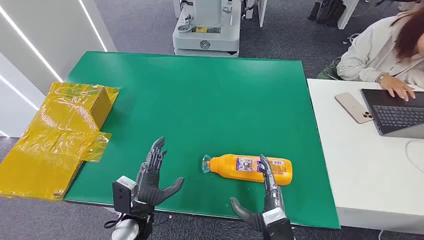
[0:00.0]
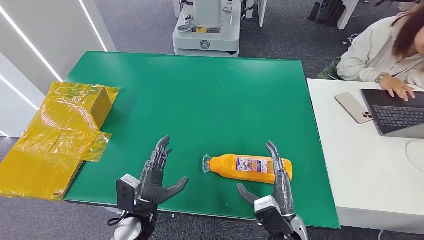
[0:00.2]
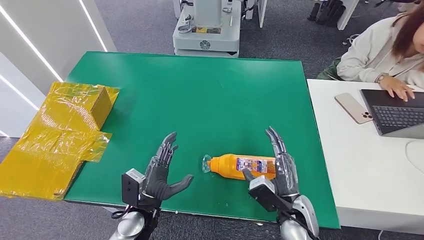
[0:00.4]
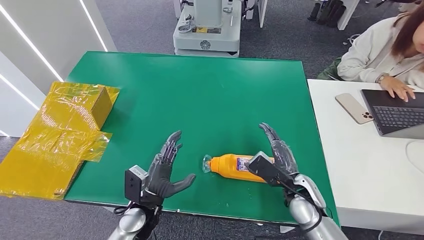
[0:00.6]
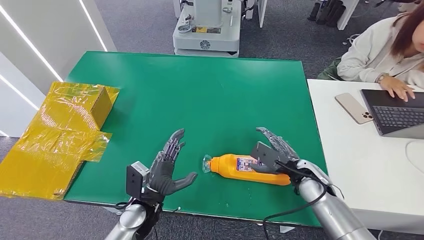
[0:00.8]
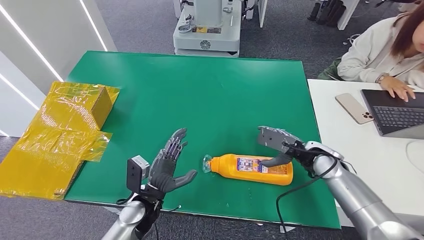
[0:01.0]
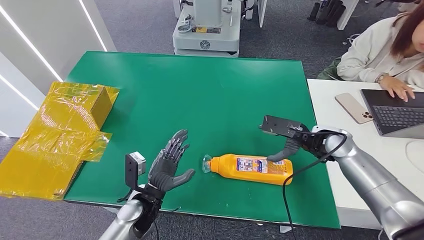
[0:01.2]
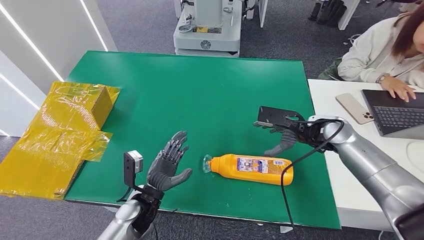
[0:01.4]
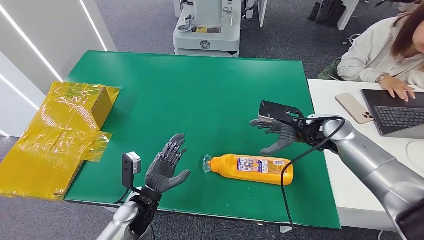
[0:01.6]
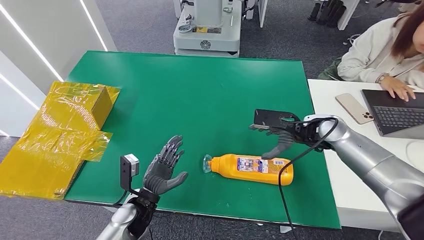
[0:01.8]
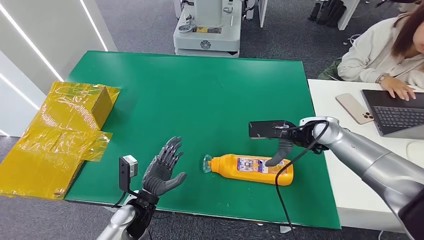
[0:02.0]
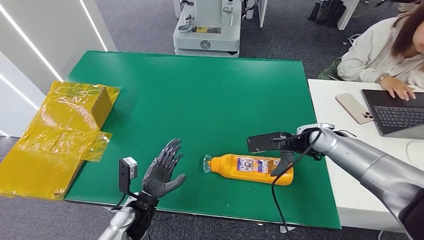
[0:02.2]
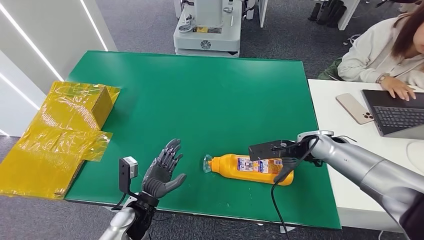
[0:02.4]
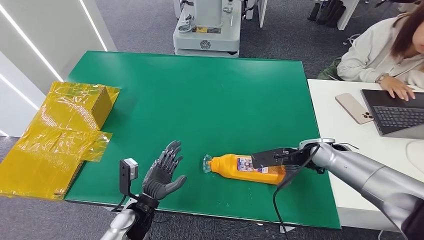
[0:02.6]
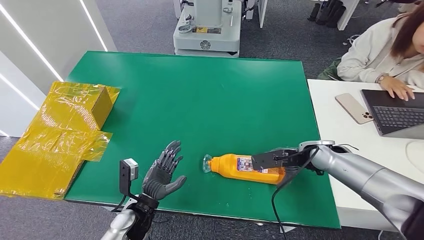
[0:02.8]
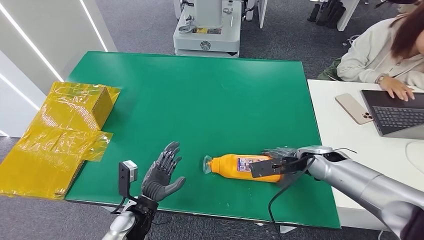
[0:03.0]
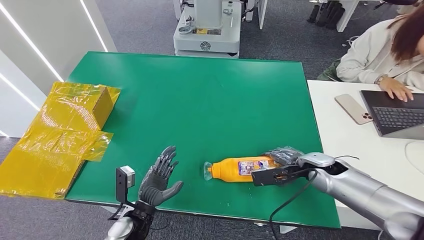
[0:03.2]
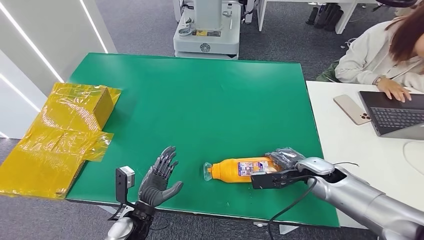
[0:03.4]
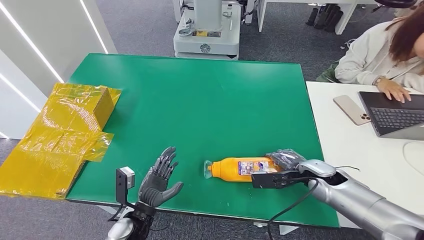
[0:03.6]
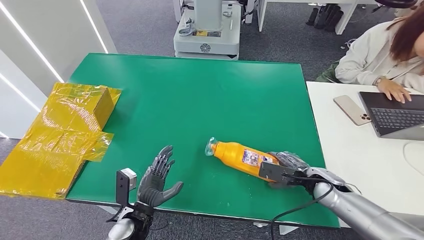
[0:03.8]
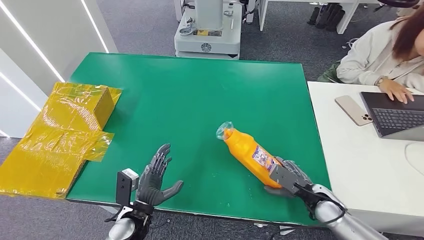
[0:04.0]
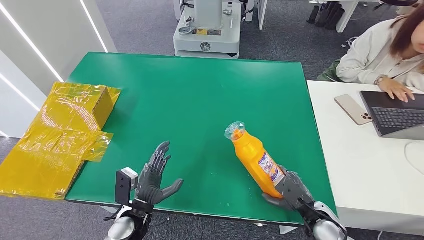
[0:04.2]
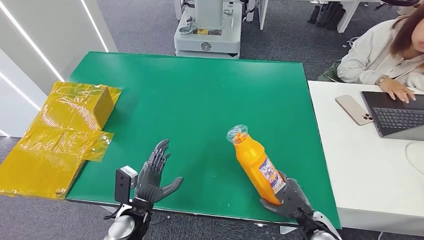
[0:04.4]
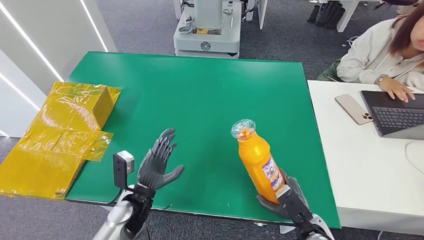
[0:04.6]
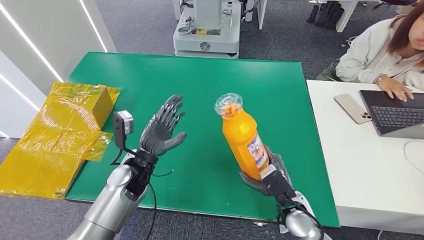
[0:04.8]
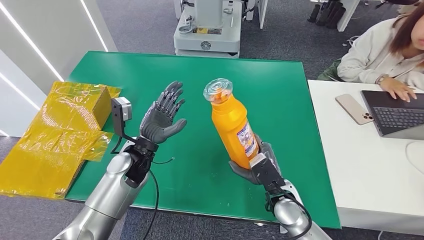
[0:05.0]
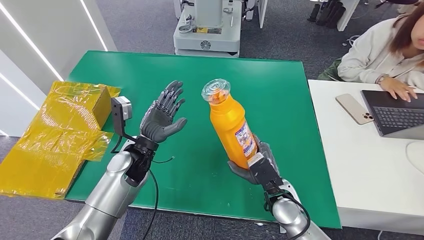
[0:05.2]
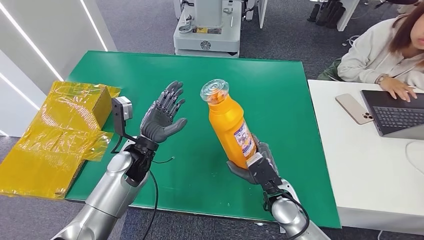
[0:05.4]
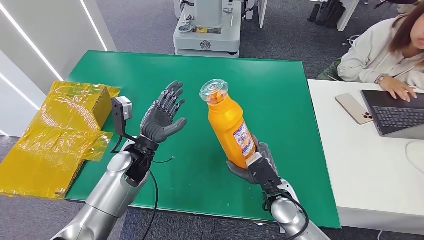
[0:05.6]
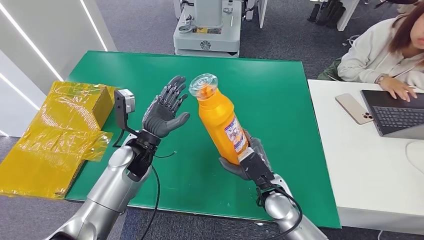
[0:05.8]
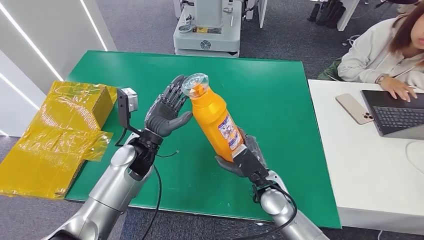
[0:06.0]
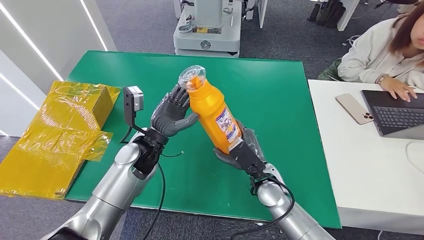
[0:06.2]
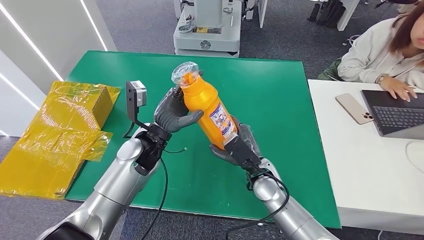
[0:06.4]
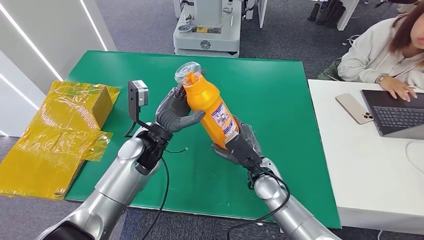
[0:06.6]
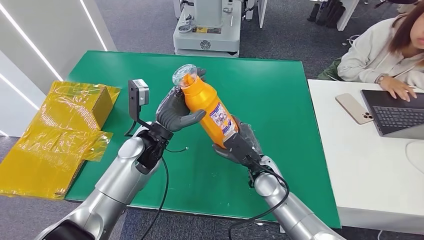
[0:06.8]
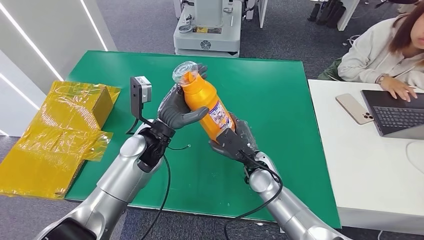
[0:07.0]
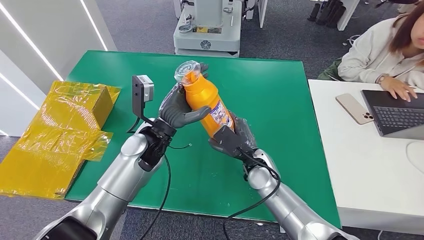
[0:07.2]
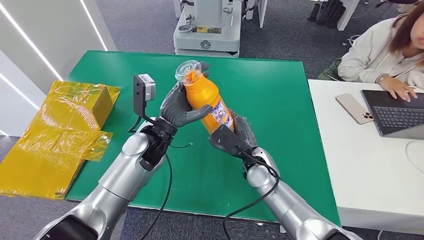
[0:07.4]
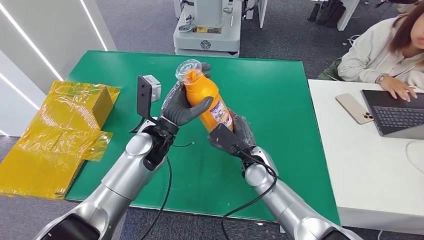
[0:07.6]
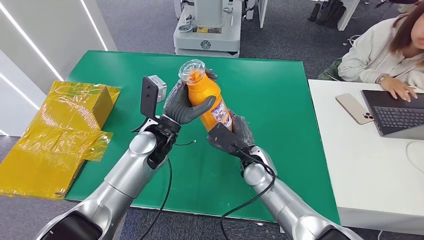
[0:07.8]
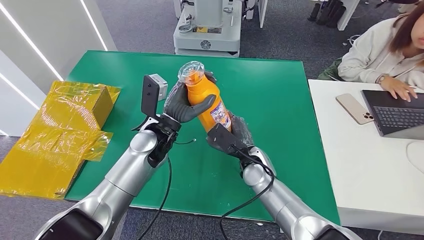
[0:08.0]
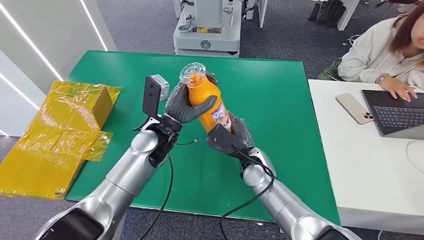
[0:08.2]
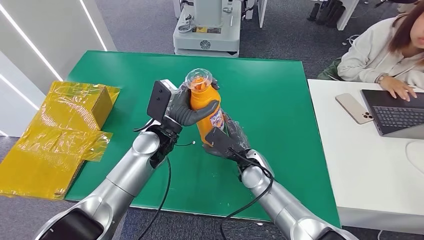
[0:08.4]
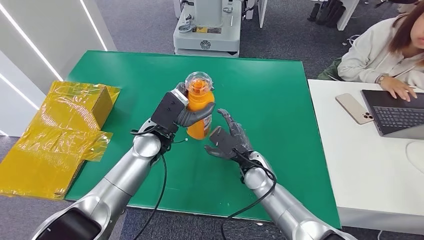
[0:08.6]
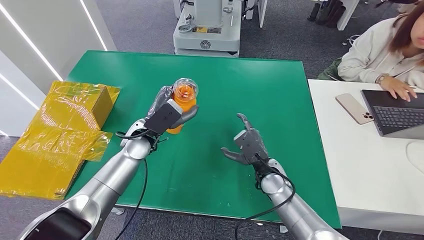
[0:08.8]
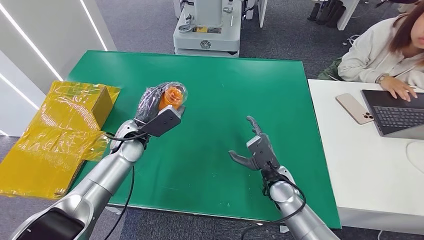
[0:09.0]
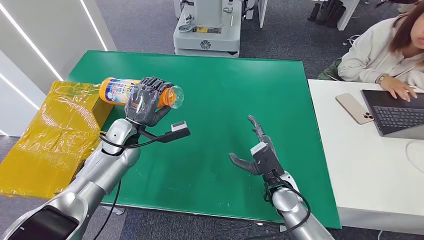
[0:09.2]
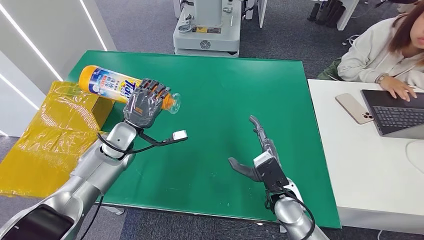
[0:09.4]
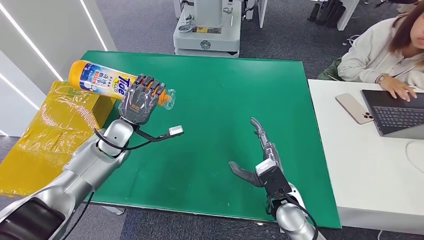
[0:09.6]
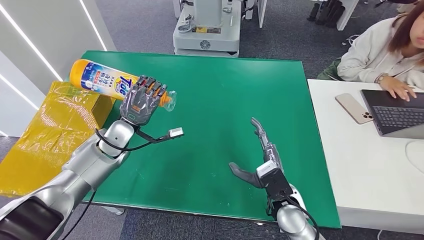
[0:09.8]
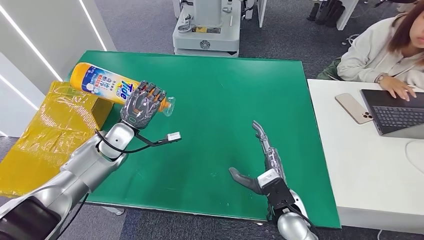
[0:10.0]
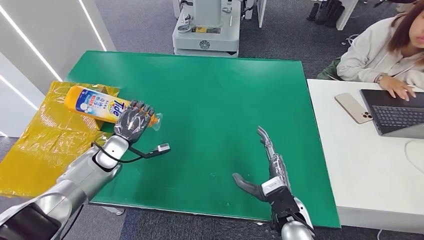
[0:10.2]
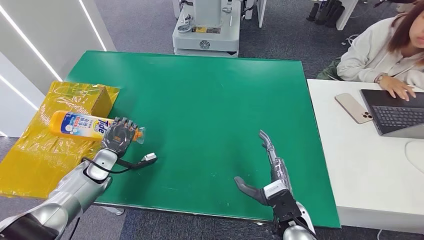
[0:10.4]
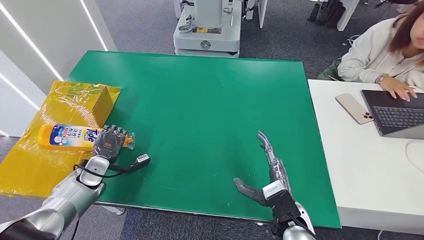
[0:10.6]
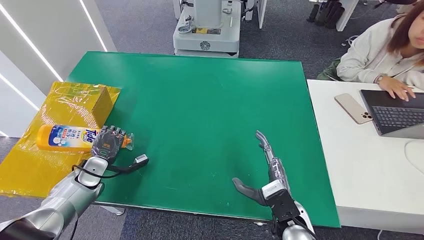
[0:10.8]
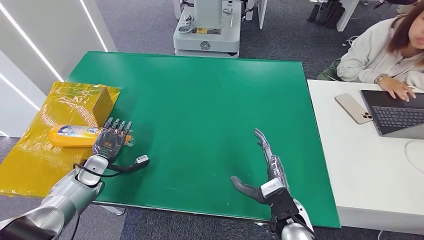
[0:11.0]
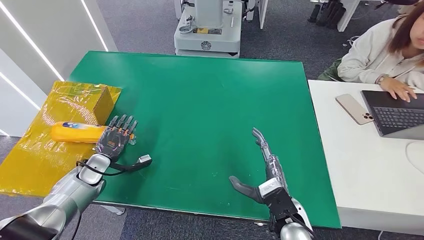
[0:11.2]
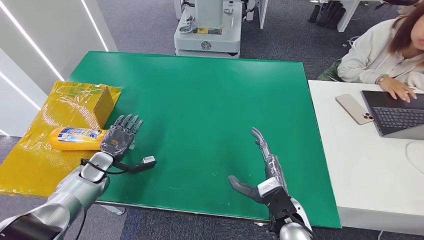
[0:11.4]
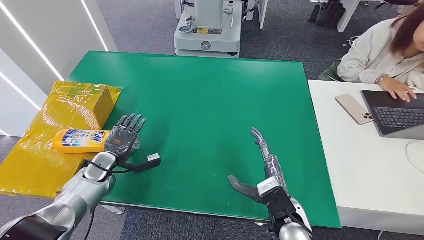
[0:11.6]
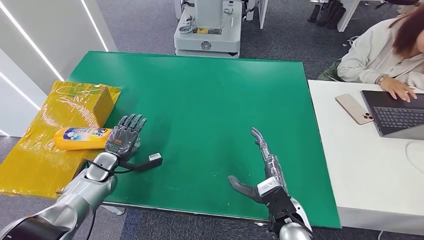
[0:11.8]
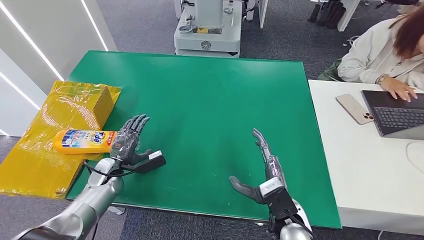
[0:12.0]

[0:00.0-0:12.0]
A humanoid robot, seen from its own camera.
Step, 0:00.0 to 0:04.6: Pick up the bottle from the table.
Step, 0:05.0 to 0:12.0: Turn the bottle to the front side.
0:01.6 to 0:03.0: The right hand heads downward, covering approximately 10 cm.
0:03.0 to 0:04.4: The right hand goes approximately 20 cm backward and downward.
0:04.4 to 0:06.0: The left hand goes some 20 cm forward and upward. The right hand is displaced to the left, forward and upward by about 20 cm.
0:06.0 to 0:07.6: The left hand changes place by approximately 5 cm, while the right hand heads forward, covering approximately 5 cm.
0:07.6 to 0:09.0: The right hand is displaced to the right by roughly 5 cm. Meanwhile the left hand heads to the left, covering some 10 cm.
0:09.0 to 0:10.4: The left hand is displaced to the left and downward by about 15 cm, while the right hand shifts roughly 10 cm backward.

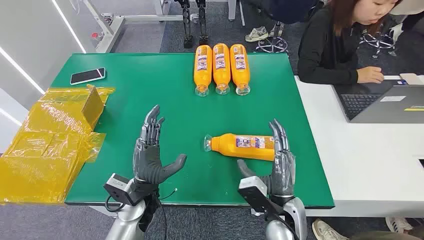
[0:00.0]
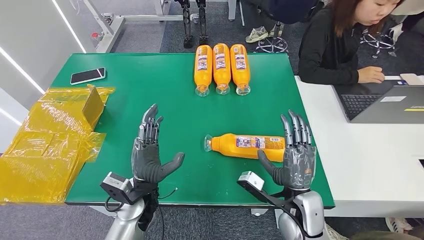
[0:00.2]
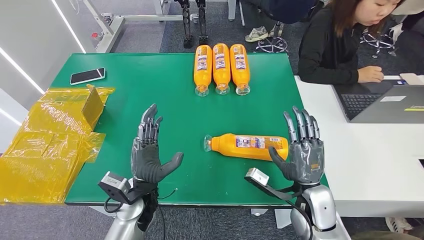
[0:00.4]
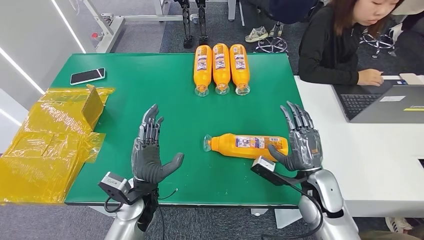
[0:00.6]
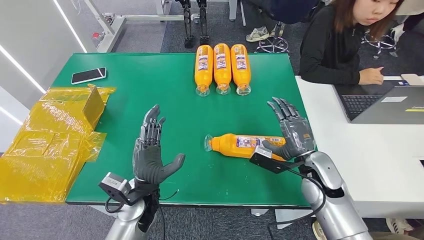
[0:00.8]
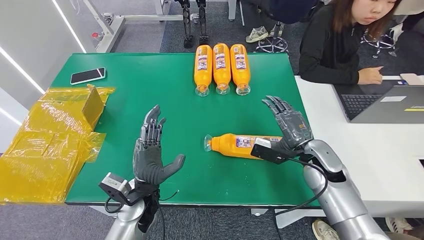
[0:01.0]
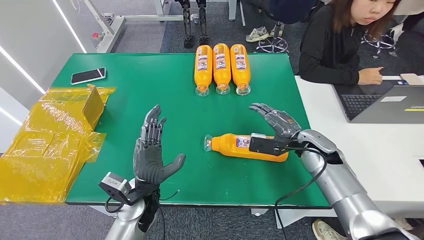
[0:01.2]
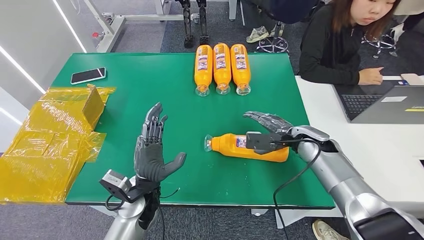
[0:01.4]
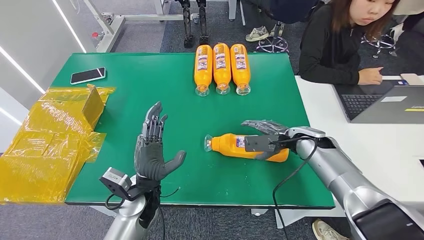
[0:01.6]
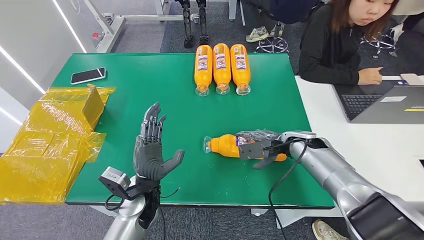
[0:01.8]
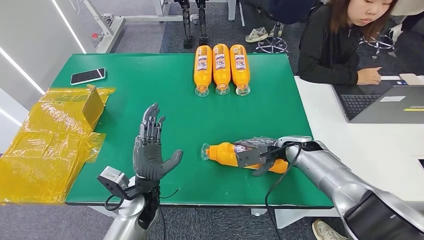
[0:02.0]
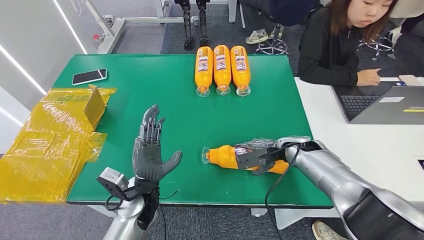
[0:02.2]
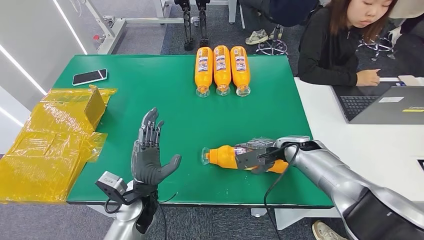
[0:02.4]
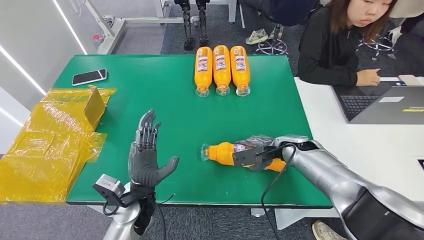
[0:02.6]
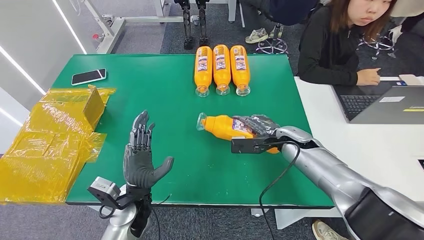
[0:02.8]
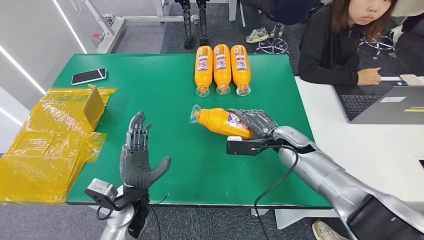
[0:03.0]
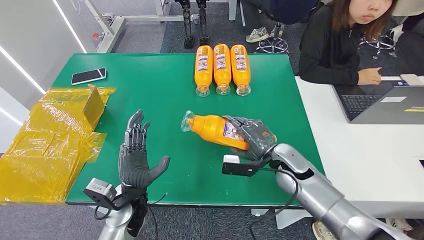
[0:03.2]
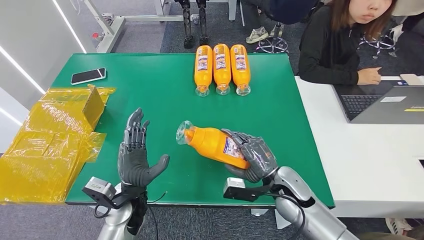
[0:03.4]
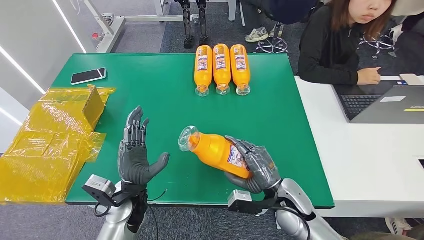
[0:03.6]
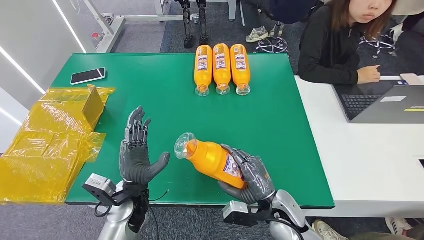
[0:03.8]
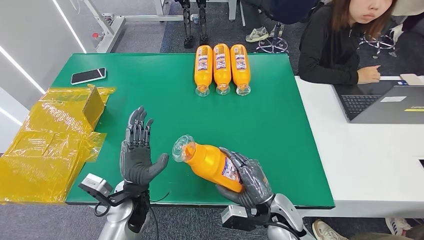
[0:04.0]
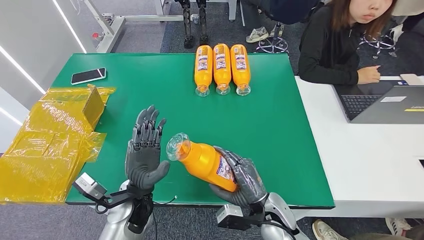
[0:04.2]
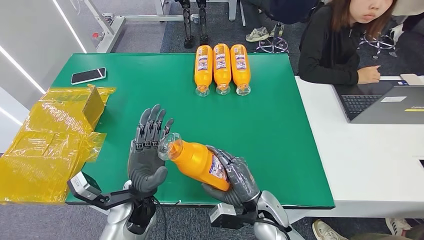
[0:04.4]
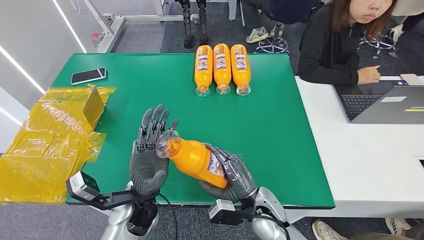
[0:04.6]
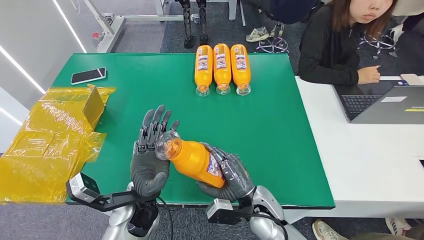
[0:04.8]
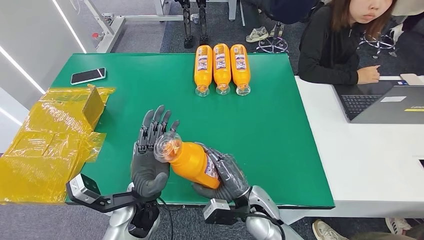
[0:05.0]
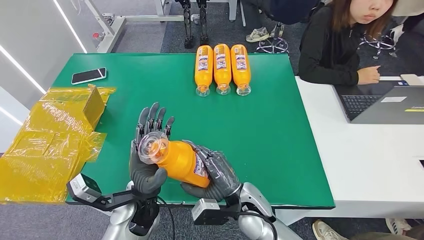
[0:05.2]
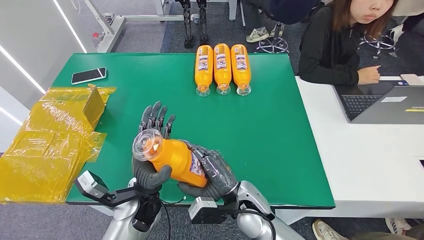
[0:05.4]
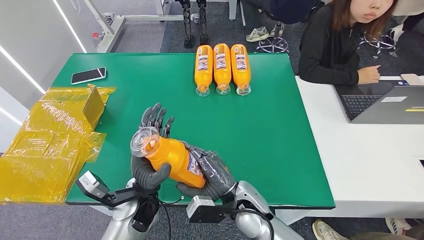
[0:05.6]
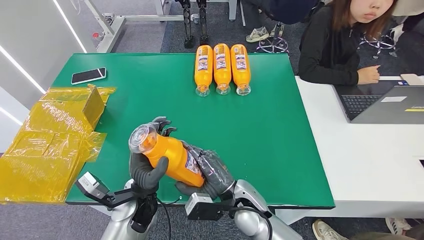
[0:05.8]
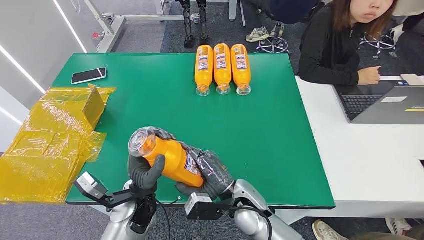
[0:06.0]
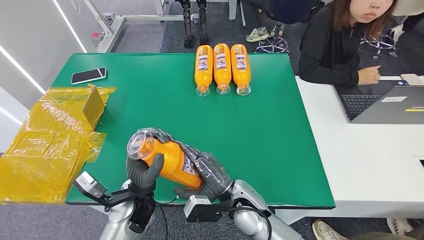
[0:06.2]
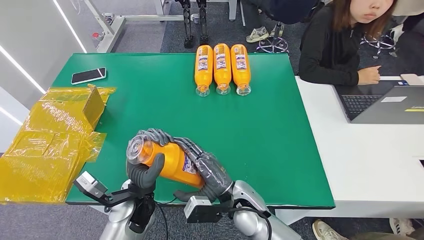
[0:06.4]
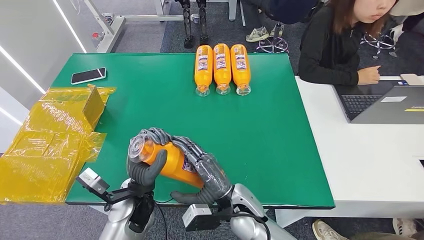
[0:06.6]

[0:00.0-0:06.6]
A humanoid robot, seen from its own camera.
Step, 0:00.0 to 0:03.6: Pick up the bottle from the table.
0:01.6 to 0:03.2: The right hand moves to the left and backward, about 10 cm.
0:03.2 to 0:05.0: The right hand is displaced backward and to the left by some 15 cm. The left hand shifts by about 5 cm.
0:05.0 to 0:06.6: The hands stay close to where they were, moving slightly.
